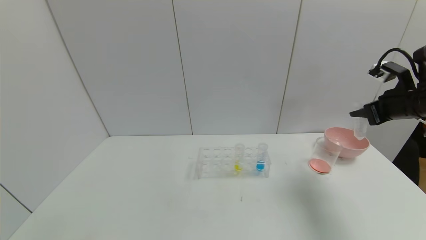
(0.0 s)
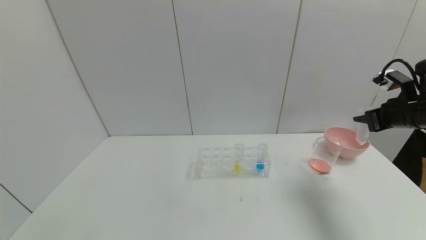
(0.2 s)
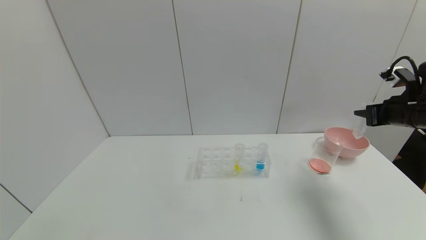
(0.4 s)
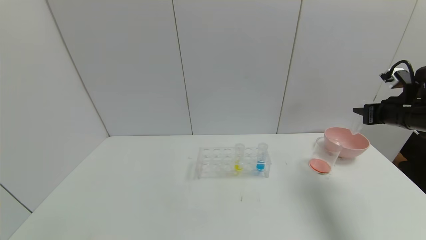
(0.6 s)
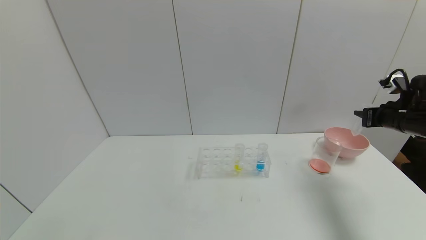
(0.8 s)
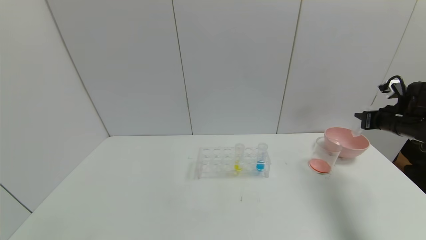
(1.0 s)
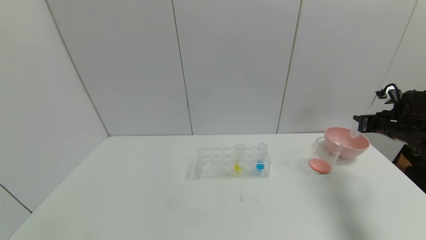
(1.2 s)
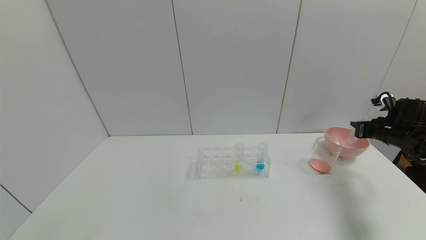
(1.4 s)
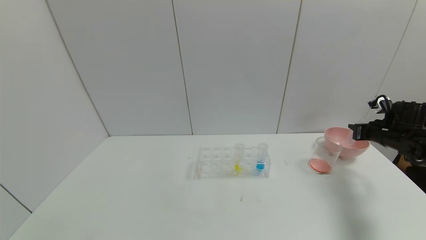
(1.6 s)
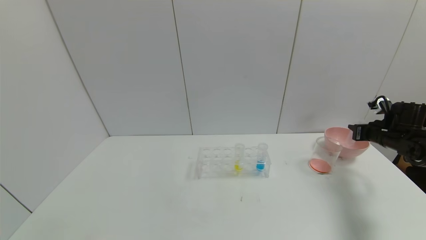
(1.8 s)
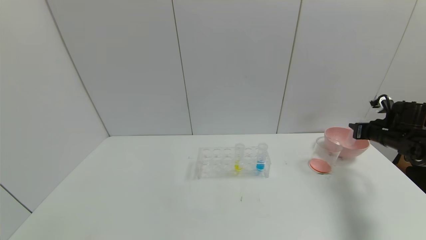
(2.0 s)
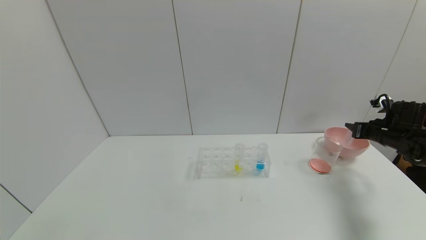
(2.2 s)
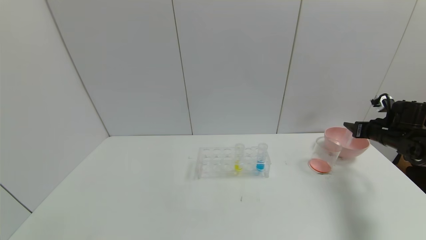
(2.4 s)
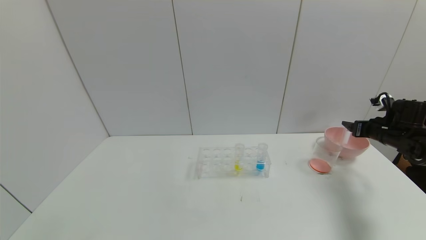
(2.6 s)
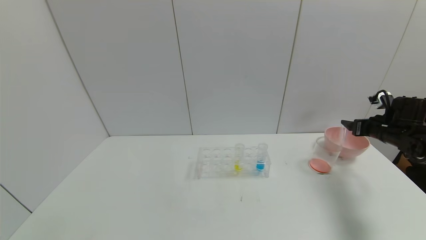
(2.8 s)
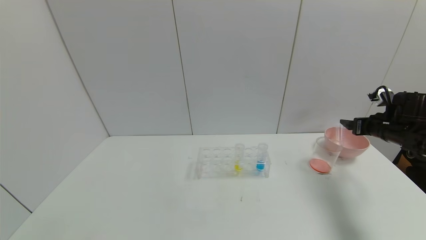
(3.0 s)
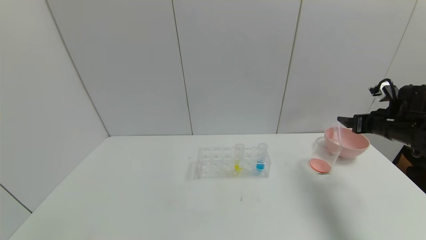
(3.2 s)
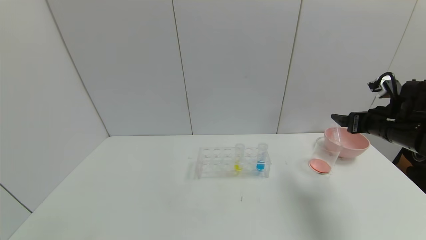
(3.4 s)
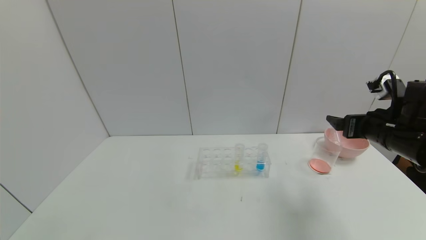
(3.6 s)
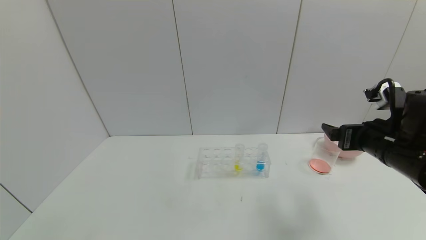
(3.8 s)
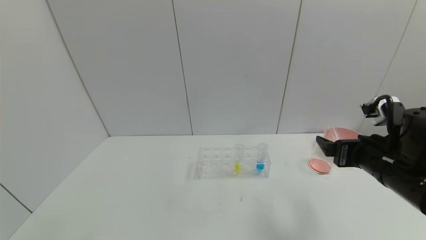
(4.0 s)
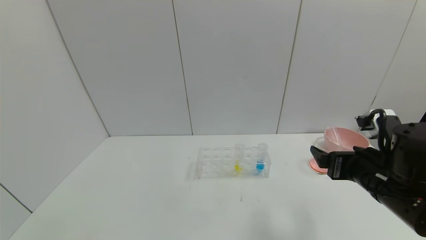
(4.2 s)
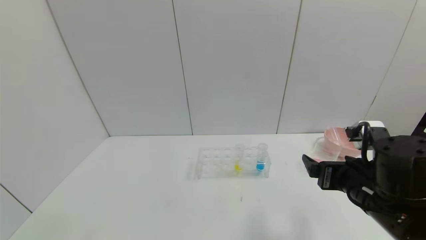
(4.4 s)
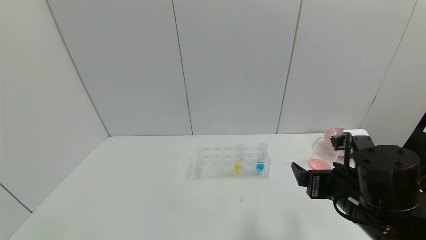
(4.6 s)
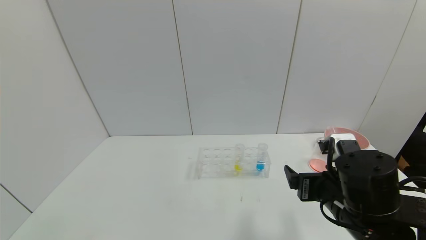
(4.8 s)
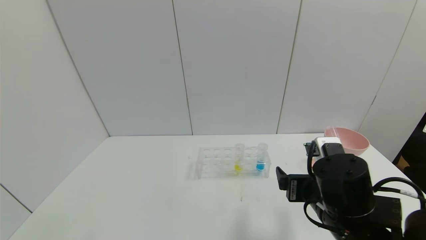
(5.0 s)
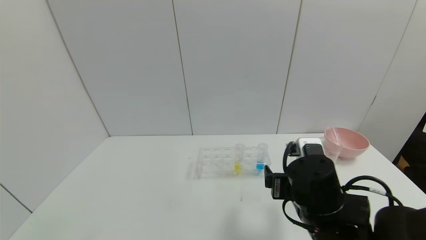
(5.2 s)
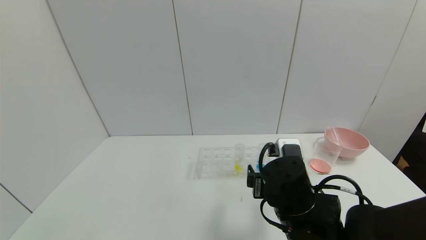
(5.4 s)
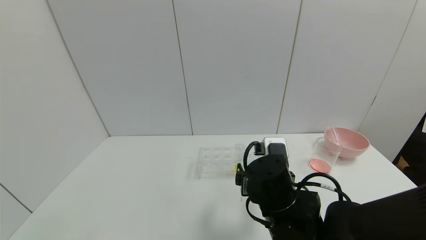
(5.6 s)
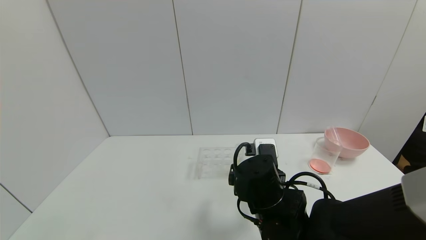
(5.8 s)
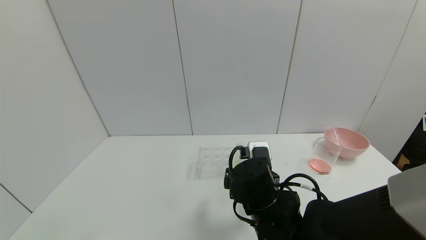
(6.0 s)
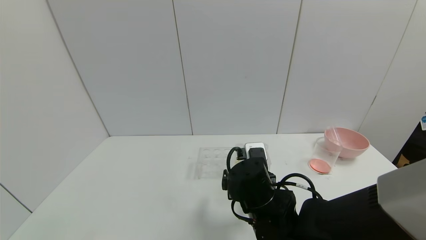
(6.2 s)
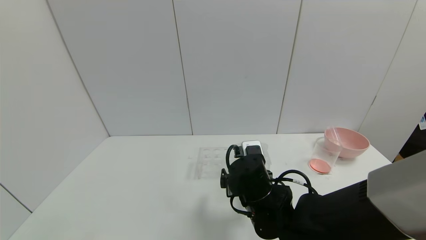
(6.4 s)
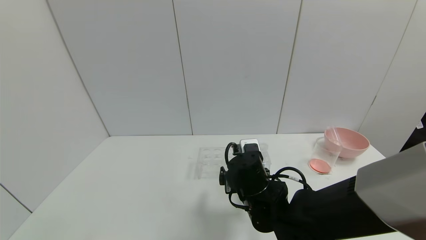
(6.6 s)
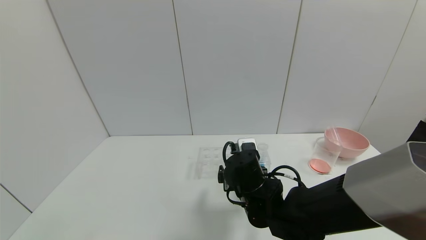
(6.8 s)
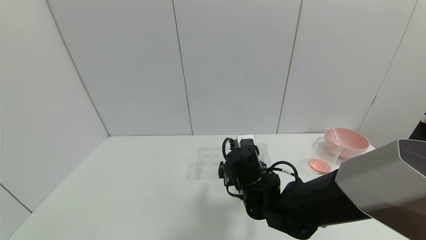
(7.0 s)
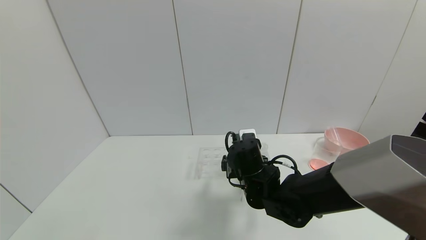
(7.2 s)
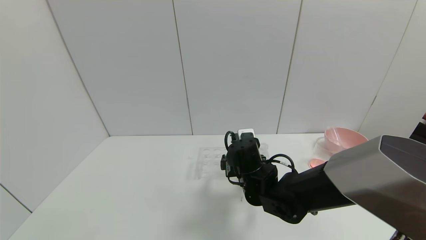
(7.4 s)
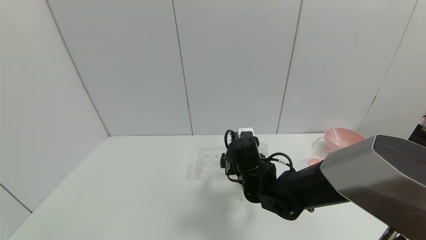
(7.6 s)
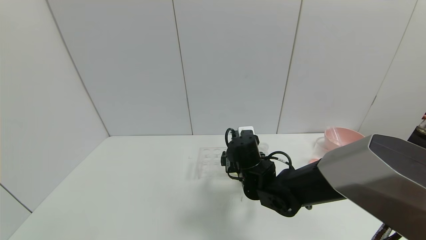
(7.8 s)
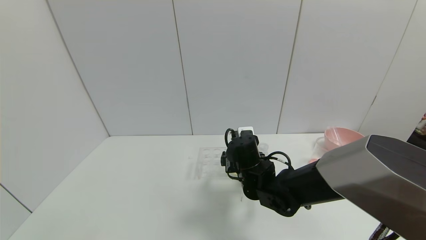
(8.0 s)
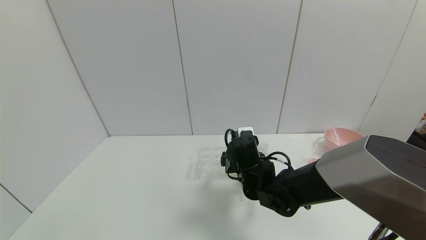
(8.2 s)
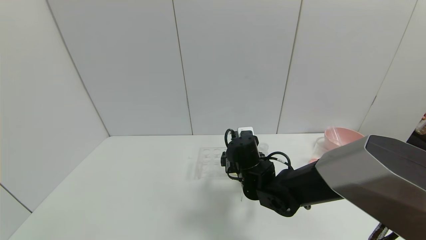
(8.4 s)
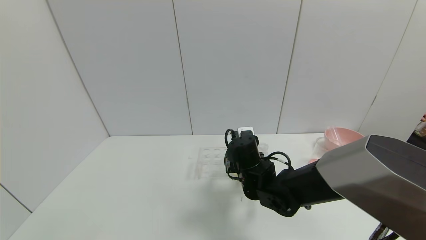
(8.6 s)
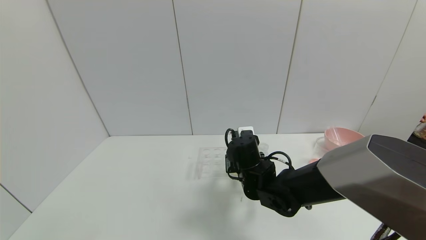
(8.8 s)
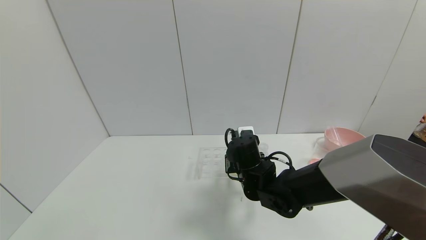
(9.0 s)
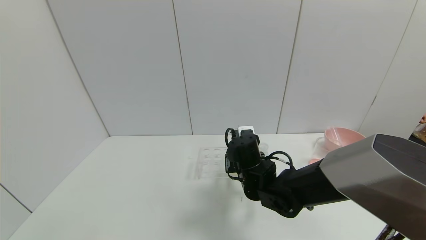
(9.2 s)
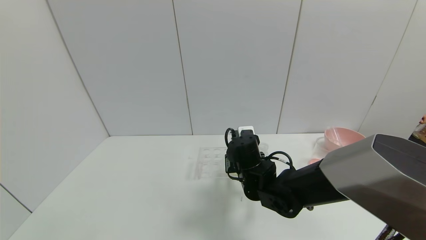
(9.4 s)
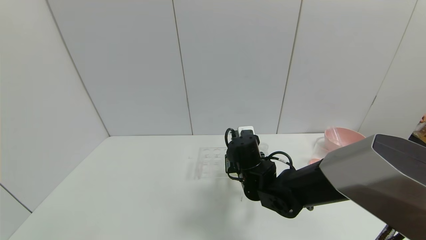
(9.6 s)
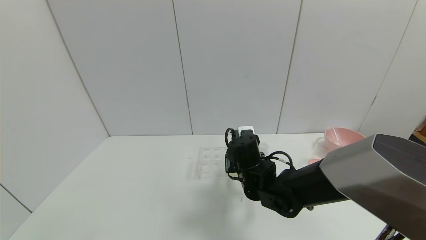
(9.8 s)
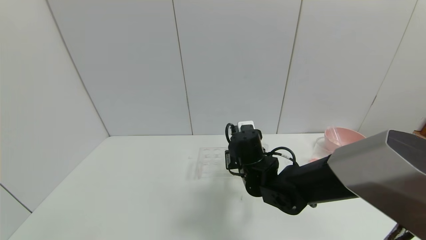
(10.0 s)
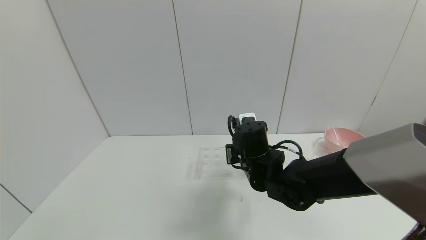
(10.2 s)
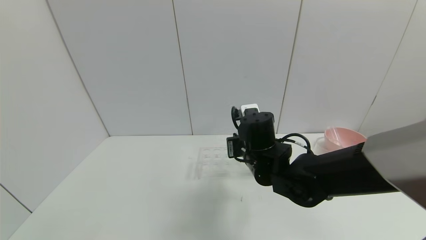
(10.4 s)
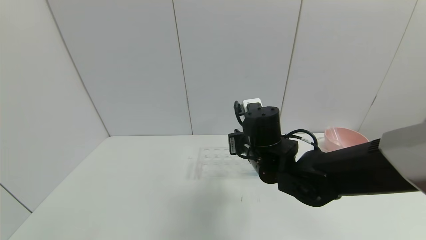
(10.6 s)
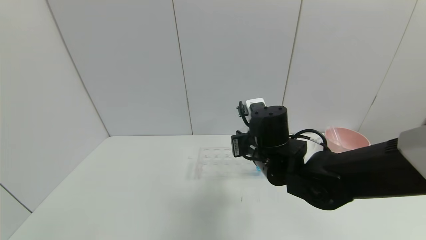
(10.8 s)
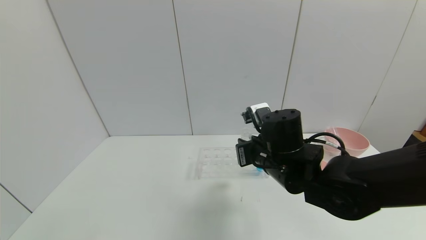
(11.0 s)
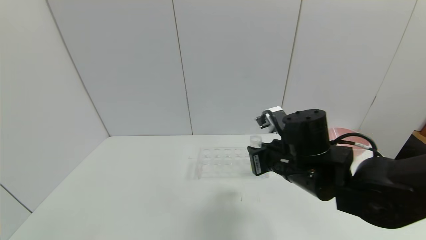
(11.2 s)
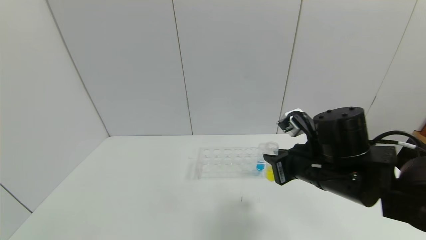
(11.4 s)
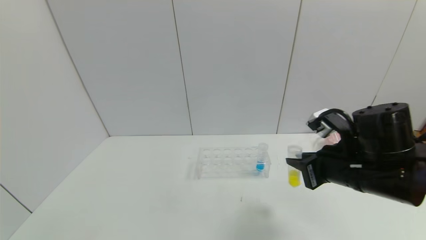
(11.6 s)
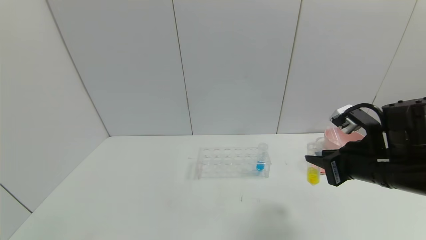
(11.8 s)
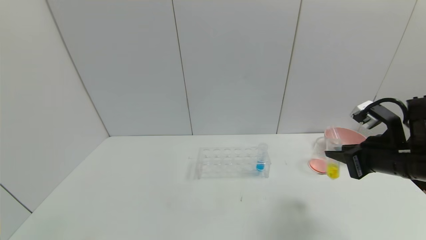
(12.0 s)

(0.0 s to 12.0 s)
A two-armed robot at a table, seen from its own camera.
Task of the whole recording: pick up the test tube with yellow pigment and the test tube with red pigment by grippers and pour them into the beaker.
Step, 0.0 s - 2.6 s: Place the test tube into the bowl with the right gripper.
Step, 2.8 s - 9.2 s: Grasp the yellow reagent with the right gripper.
0.0 s - 1.6 s: The right gripper heads downward, forward and to the right, covering about 15 cm.
1.6 s - 3.0 s: The right gripper opens.
3.0 s - 4.4 s: The right gripper is displaced to the left and backward by about 25 cm.
4.4 s - 6.0 s: The right gripper heads to the left, covering approximately 15 cm.
6.0 s - 7.6 s: The right gripper moves forward, approximately 10 cm.
7.6 s - 9.0 s: The right gripper closes up.
9.0 s - 10.4 s: The right gripper travels upward by about 5 cm.
10.4 s - 12.0 s: The right gripper is displaced to the right by some 25 cm.

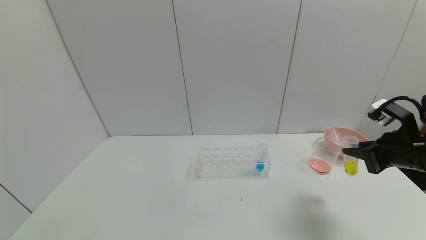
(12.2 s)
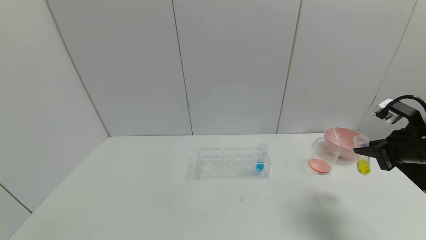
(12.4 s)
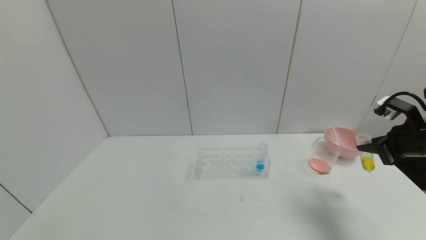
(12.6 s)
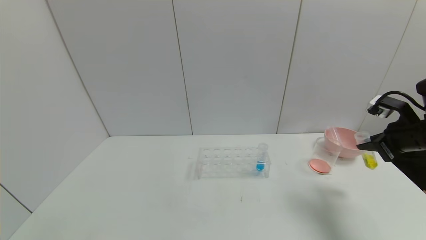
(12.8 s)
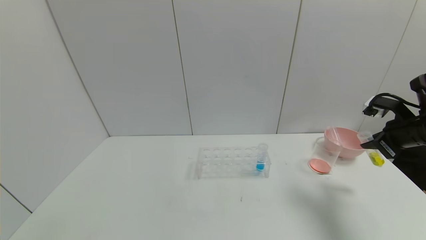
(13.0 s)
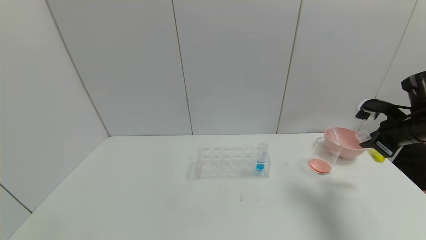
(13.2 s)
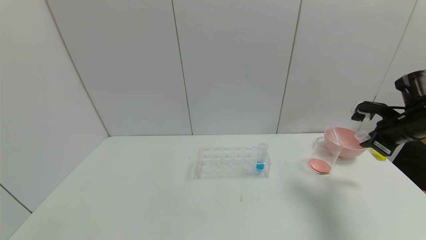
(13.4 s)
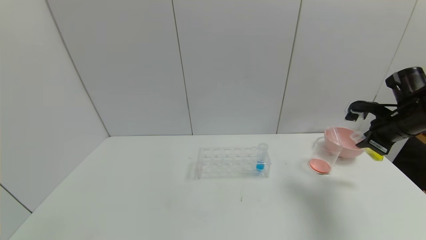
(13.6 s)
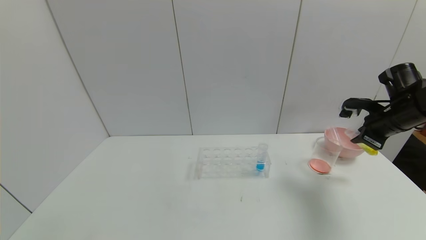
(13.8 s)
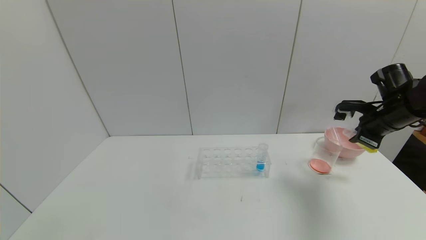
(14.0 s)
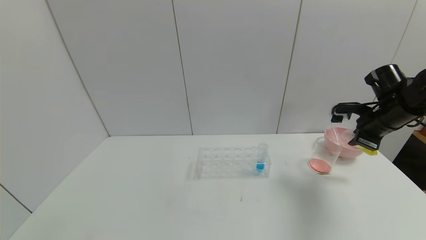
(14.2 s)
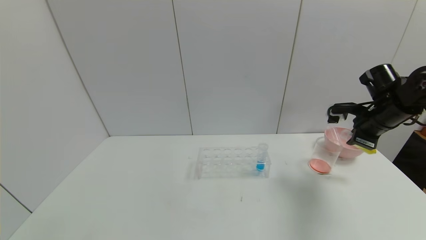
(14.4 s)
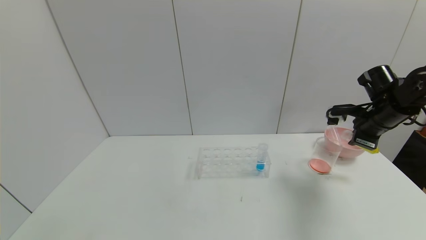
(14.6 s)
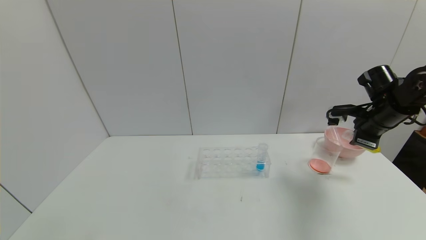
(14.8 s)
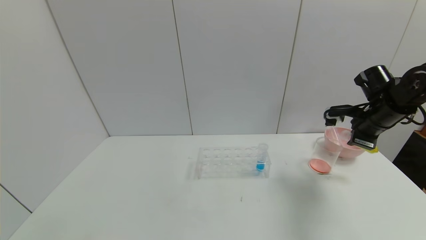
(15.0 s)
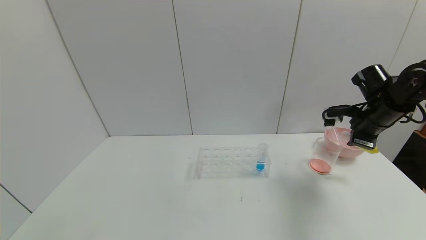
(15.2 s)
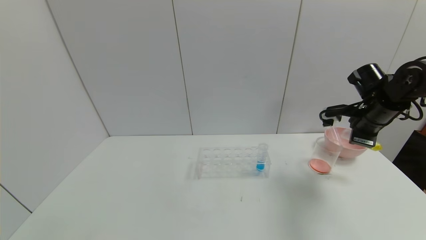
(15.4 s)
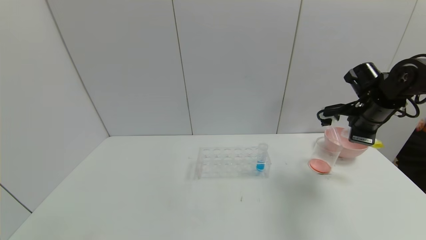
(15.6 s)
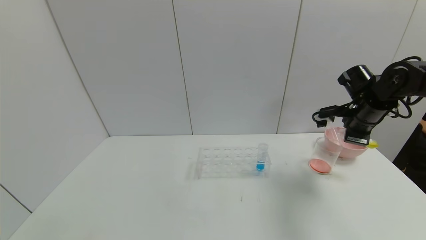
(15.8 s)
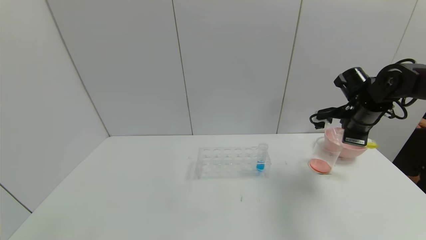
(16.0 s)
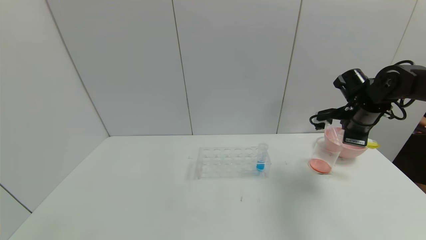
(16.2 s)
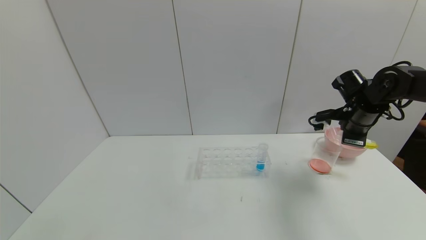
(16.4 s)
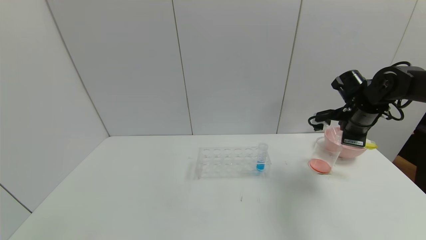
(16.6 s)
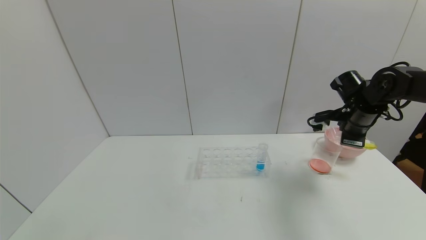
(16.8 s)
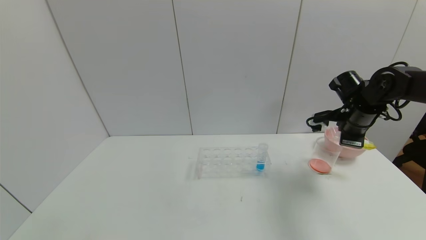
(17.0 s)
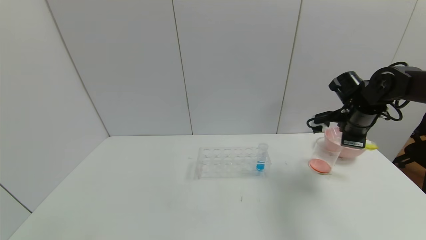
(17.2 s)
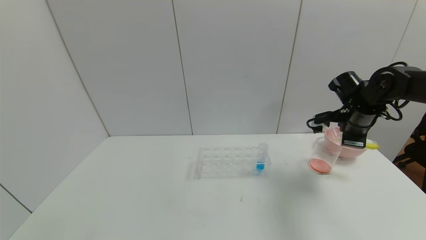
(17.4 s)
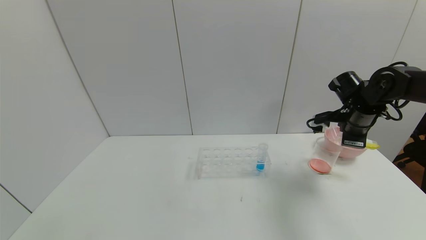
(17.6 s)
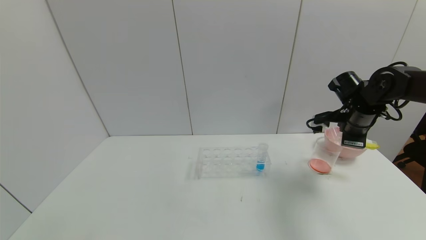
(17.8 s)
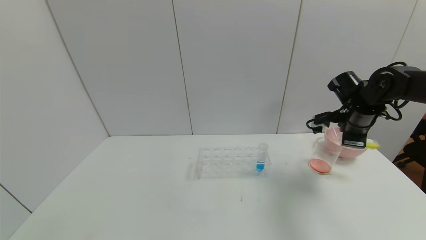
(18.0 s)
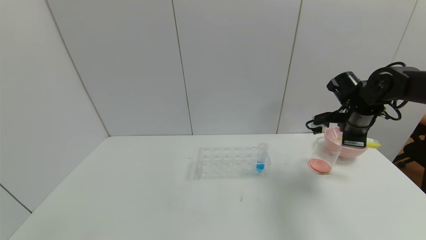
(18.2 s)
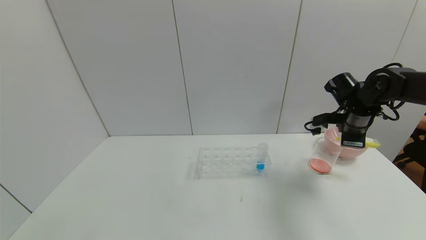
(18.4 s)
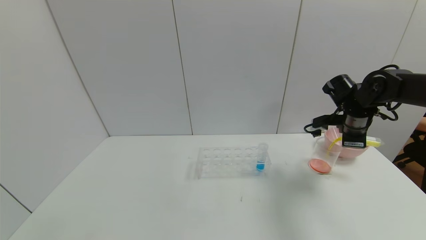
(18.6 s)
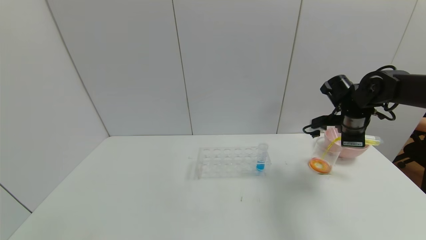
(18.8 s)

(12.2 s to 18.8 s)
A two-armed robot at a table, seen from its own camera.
Task of the whole recording: pick up the test tube with yellow pigment and the test tube with red pigment by grippers and pour them into the beaker.
12.2 s - 13.8 s: The right gripper moves forward, some 10 cm.
13.8 s - 15.4 s: The grippers stay close to where they were, moving slightly.
15.4 s - 18.8 s: The grippers move only a little.
